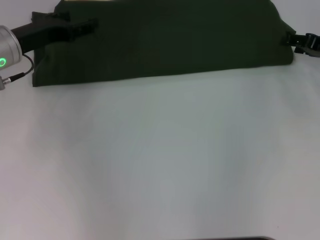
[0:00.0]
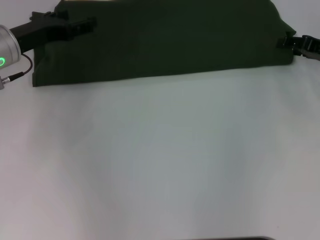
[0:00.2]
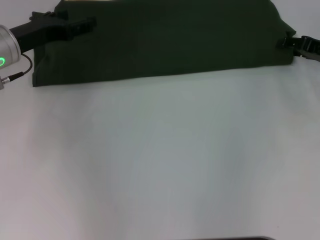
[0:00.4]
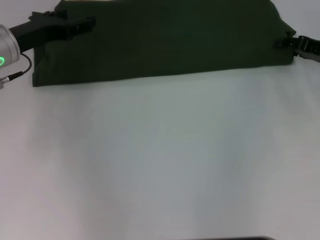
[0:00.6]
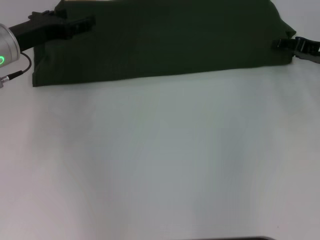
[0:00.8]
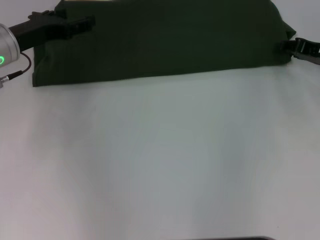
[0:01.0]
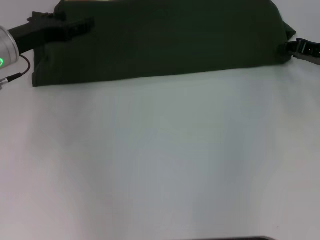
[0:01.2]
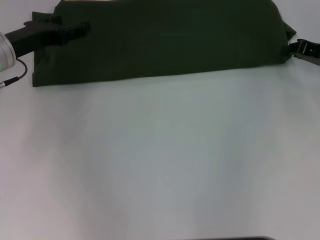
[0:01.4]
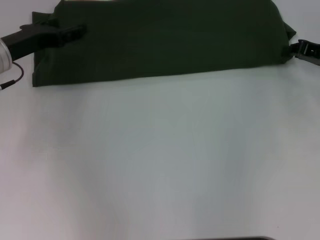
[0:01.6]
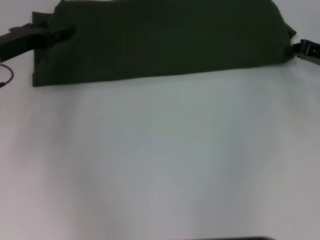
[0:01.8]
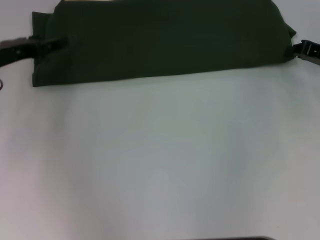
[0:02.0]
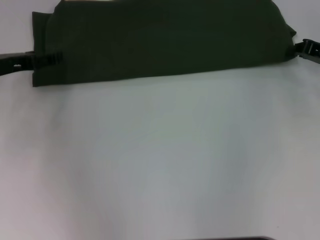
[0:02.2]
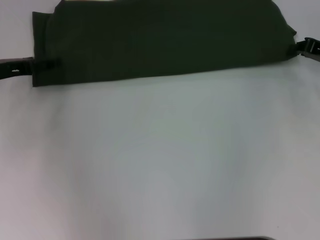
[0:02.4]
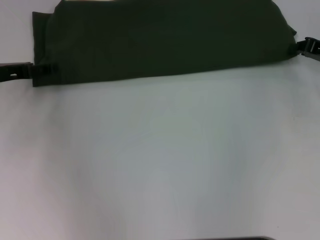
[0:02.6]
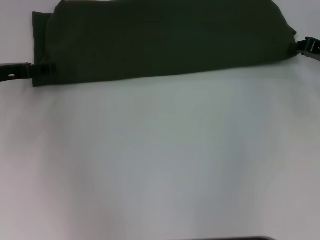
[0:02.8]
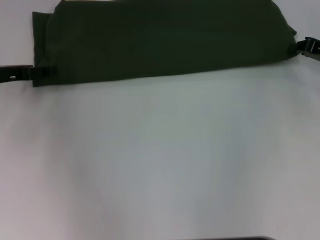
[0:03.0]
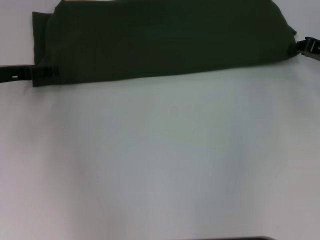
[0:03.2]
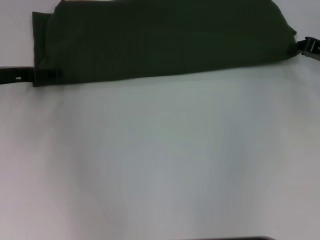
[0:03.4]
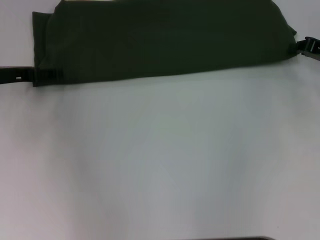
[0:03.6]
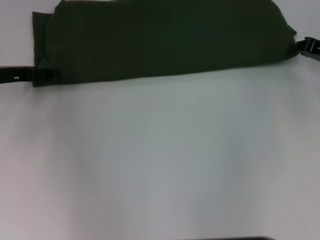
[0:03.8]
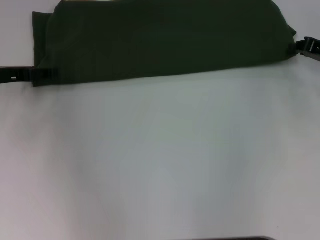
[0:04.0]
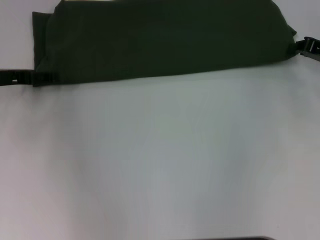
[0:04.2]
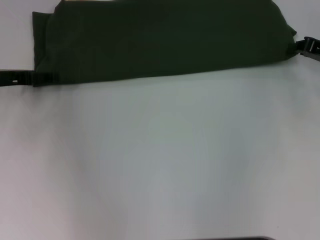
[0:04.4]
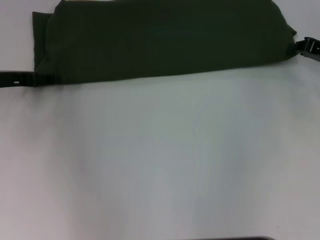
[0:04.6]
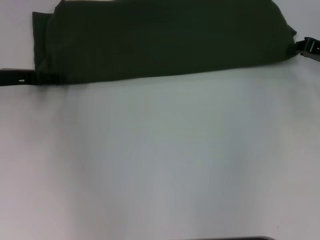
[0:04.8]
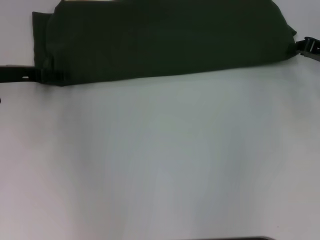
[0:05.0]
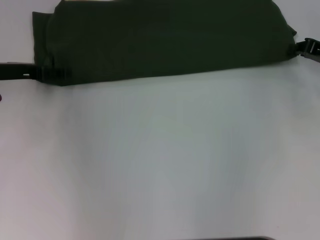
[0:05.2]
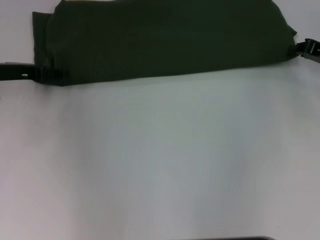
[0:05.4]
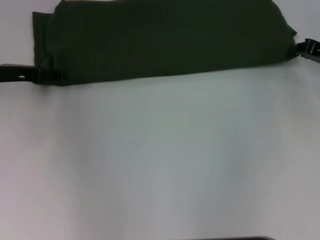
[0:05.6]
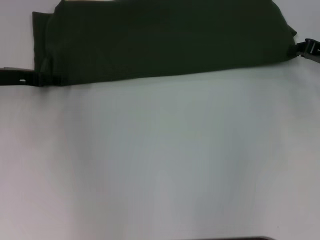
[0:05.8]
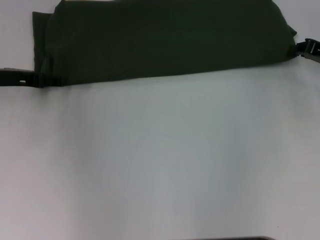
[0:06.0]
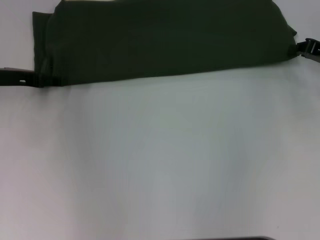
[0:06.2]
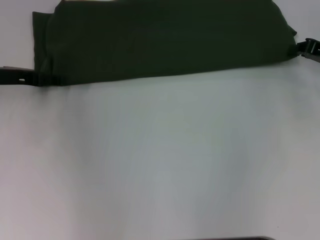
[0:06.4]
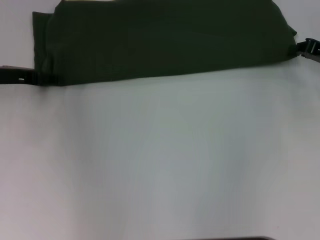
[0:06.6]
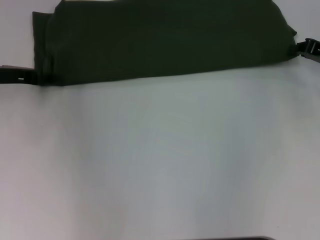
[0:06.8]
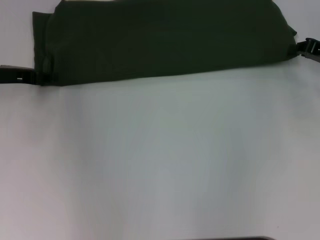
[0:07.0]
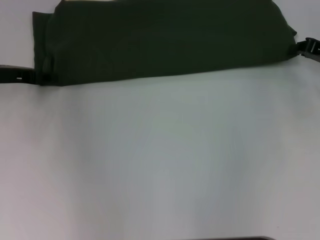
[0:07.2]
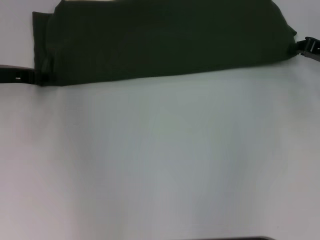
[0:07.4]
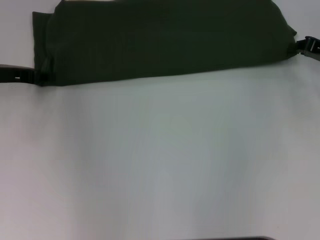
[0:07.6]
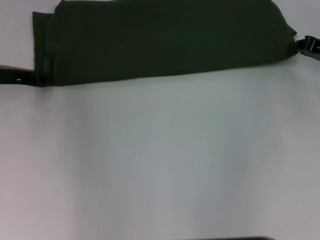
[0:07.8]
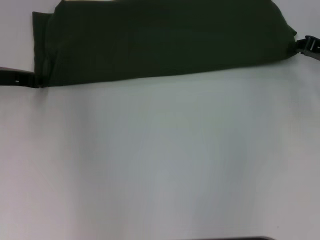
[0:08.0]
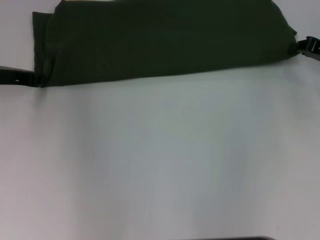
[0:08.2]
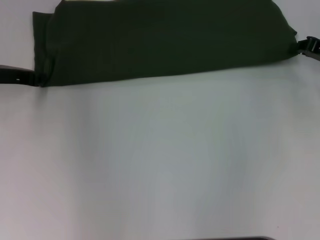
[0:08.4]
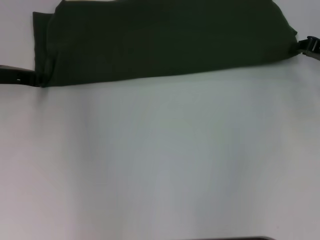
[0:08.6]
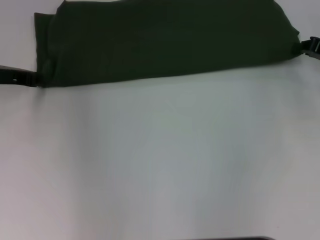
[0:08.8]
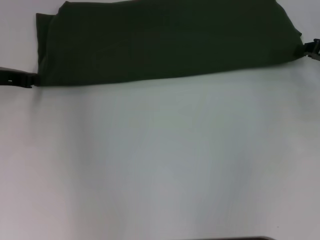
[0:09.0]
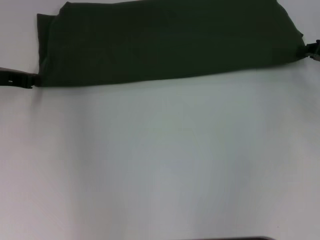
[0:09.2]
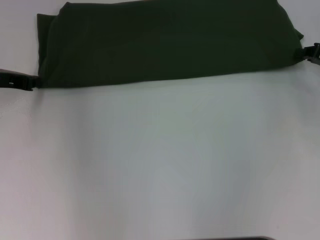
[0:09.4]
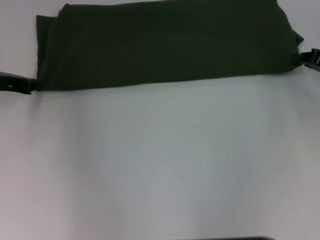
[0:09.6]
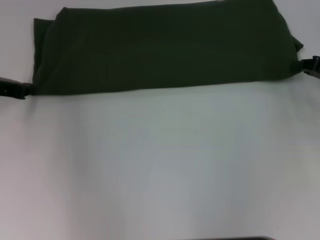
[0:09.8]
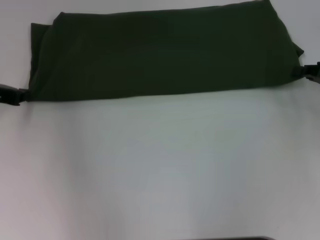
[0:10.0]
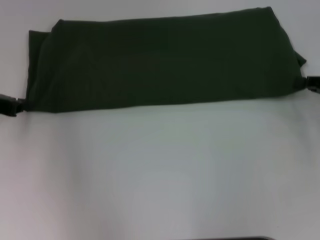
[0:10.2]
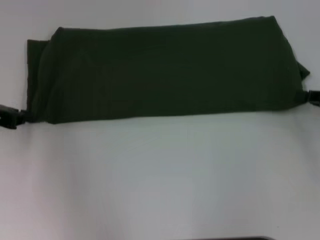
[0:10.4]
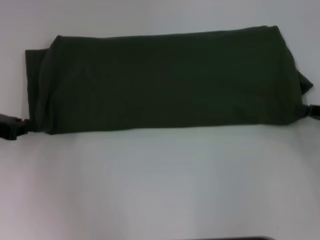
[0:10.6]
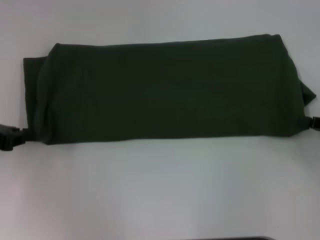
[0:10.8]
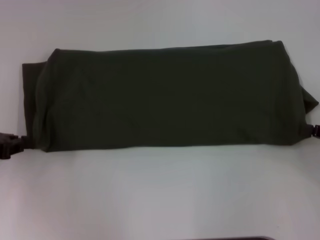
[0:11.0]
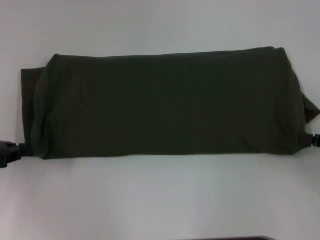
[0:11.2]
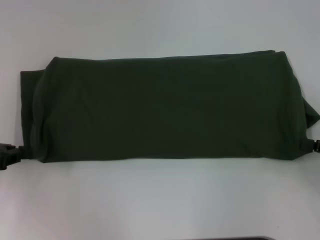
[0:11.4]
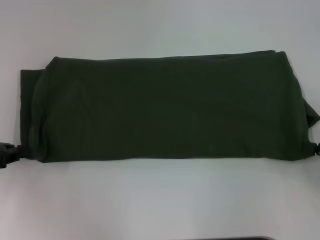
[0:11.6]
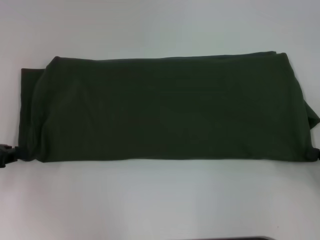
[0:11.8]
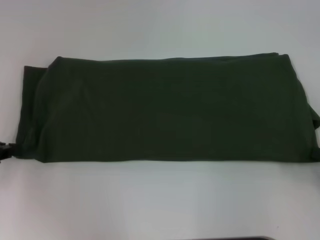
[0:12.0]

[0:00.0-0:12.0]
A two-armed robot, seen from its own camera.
0:00.0 to 0:01.6: The right gripper closes.
0:03.0 to 0:04.4: Neither gripper changes place.
0:07.6 to 0:09.0: The left gripper closes up.
0:09.0 to 0:10.4: The right gripper is displaced backward by roughly 10 cm, while the left gripper shifts approximately 5 cm backward.
0:10.4 to 0:12.0: The left gripper travels backward by some 5 cm; the right gripper goes roughly 10 cm backward.

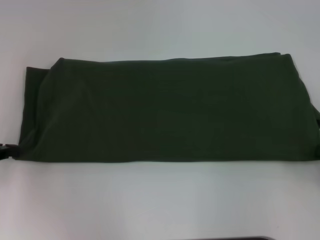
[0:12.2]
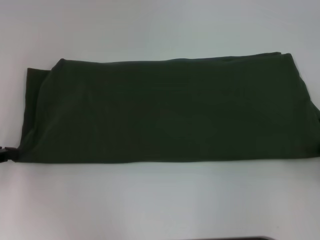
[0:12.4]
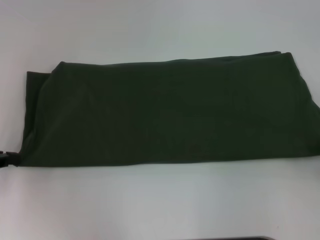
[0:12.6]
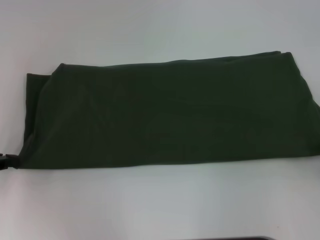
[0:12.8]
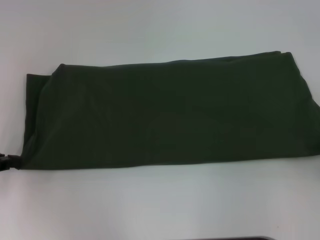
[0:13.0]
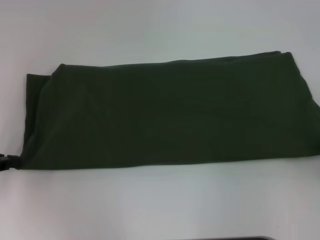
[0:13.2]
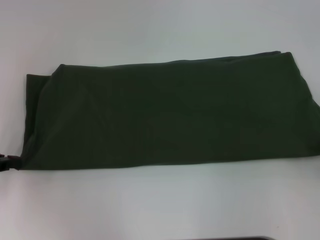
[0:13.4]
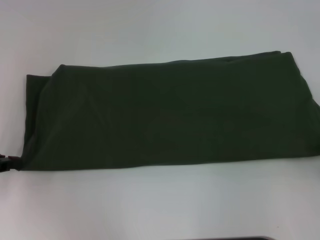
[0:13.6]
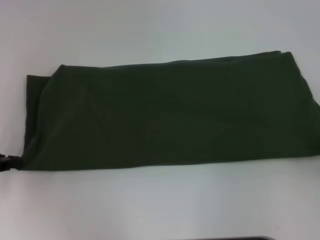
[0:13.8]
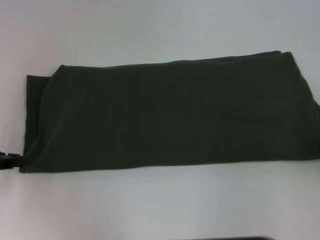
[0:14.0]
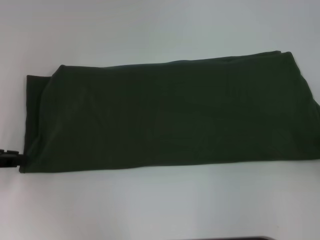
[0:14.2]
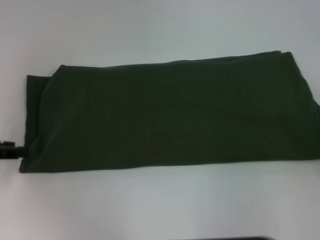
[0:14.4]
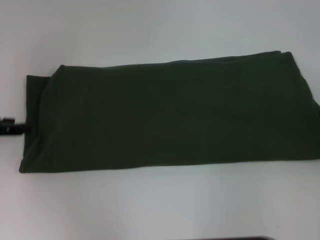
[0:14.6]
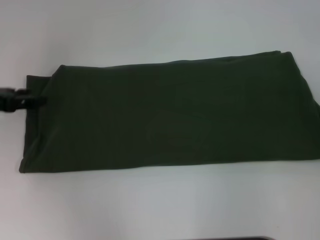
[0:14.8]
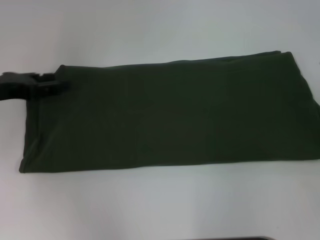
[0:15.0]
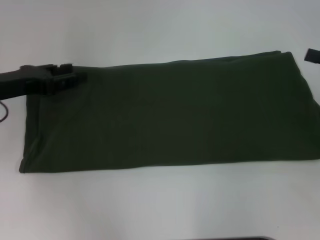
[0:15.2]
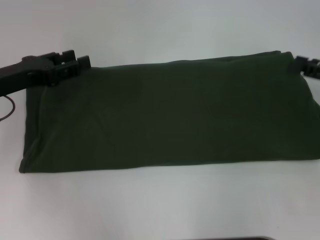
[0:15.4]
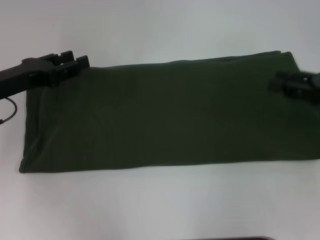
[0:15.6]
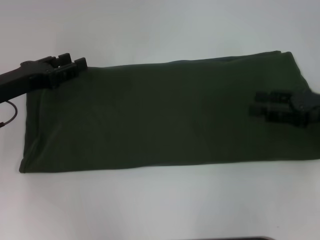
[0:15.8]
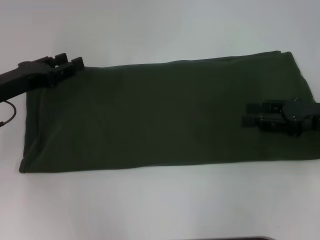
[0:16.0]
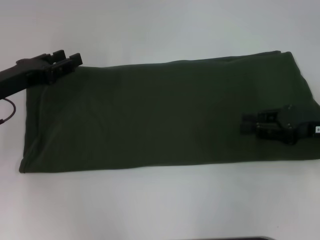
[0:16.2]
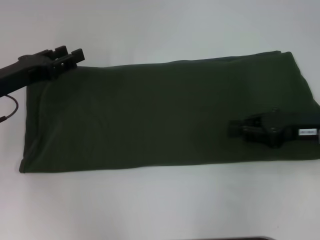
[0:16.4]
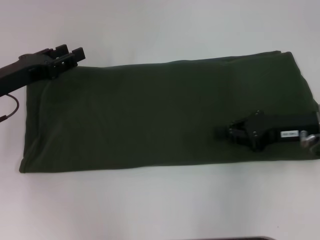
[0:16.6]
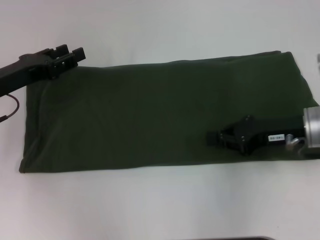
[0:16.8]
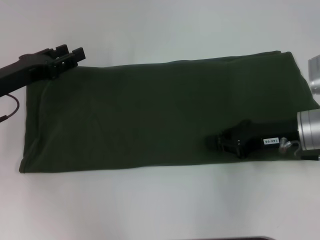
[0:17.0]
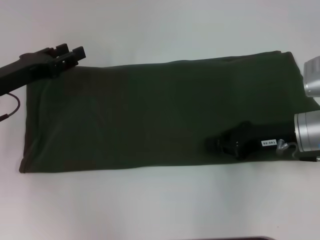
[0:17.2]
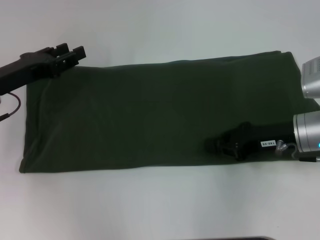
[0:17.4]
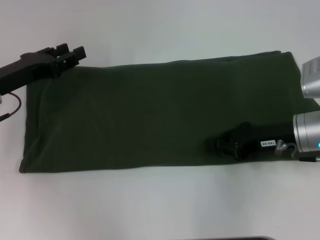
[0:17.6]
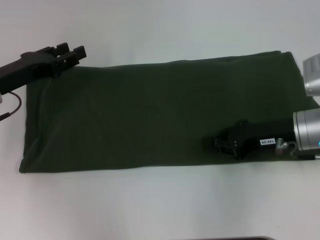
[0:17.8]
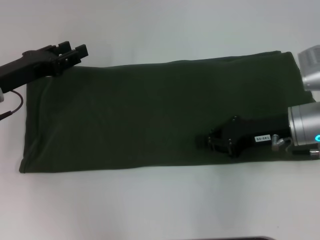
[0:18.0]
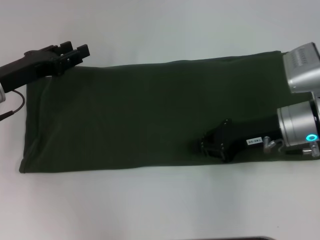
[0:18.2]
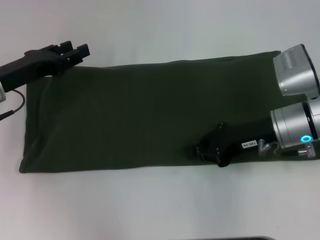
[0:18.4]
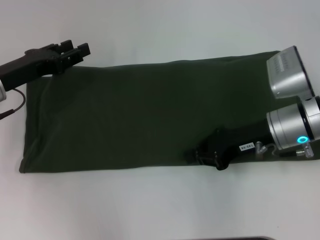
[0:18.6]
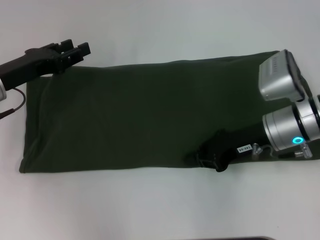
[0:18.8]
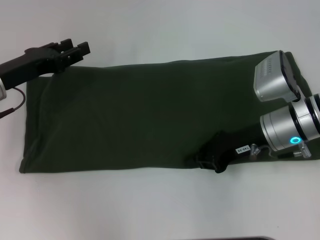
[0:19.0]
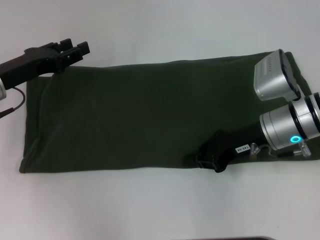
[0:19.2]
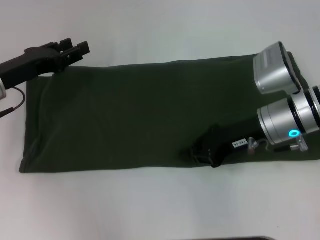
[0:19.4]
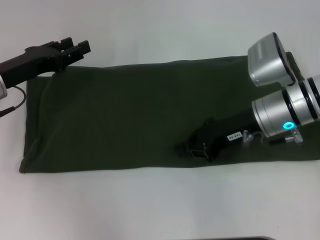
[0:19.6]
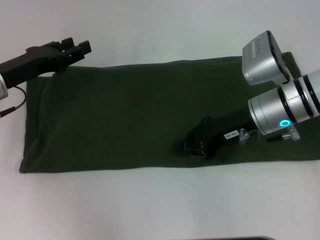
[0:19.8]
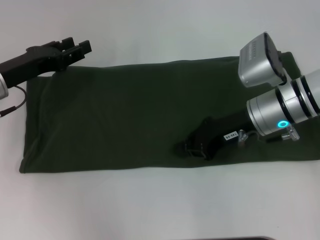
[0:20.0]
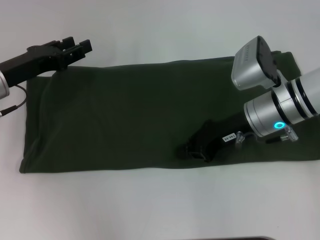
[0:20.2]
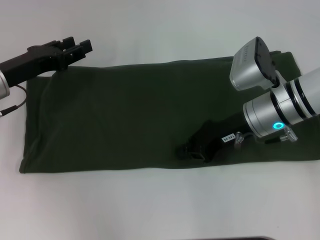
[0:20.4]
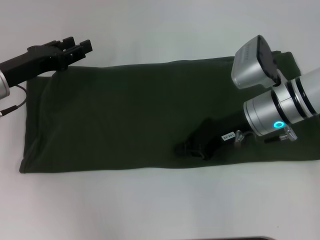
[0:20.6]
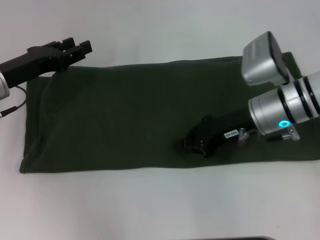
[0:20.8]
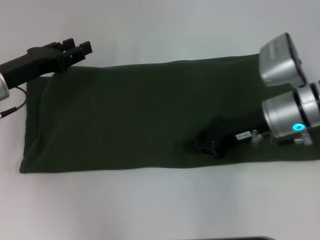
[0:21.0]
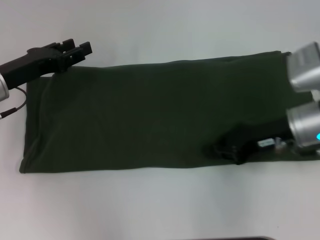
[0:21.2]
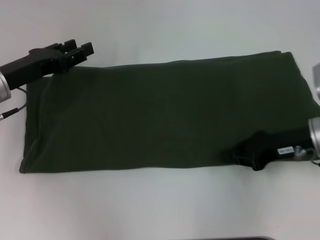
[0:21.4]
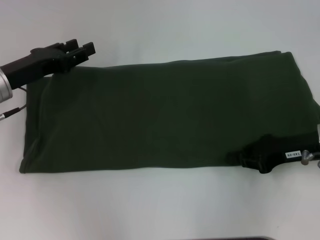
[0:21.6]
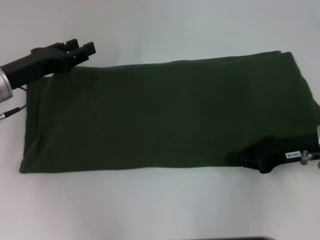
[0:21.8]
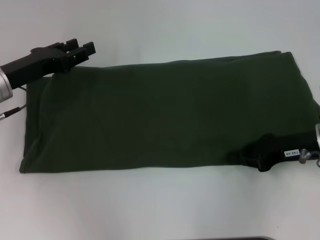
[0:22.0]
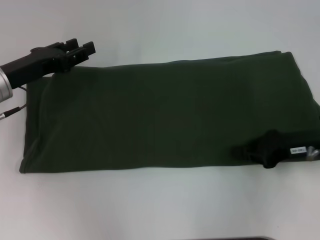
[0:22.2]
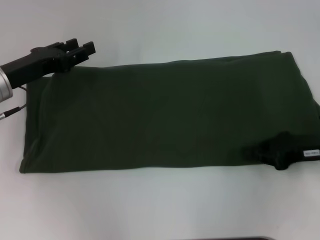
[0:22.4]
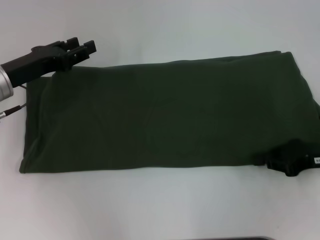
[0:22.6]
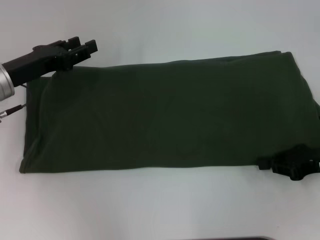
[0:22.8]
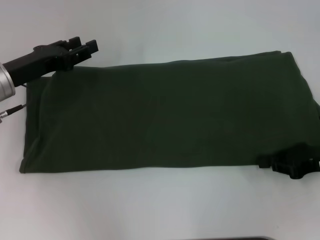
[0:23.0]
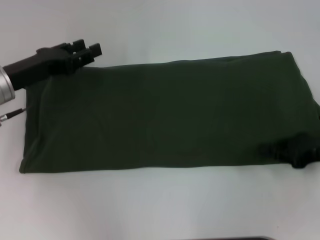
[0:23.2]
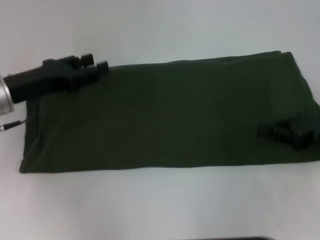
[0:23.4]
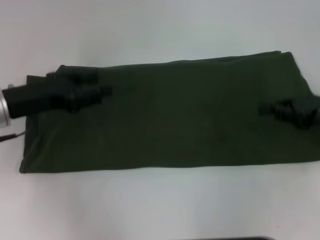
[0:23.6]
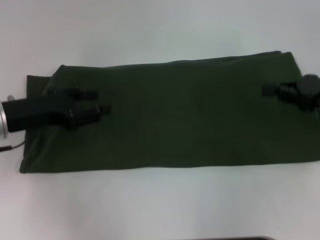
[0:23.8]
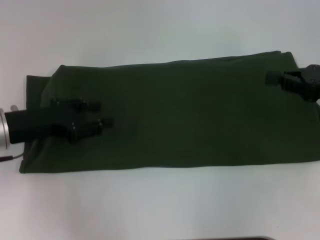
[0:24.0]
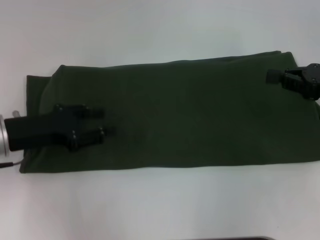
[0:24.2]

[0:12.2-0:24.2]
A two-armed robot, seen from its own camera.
0:12.2 to 0:13.8: The grippers stay close to where they were, moving slightly.
0:13.8 to 0:15.2: The left gripper heads to the right and forward, covering some 10 cm, and opens its fingers, while the right gripper goes about 10 cm forward and upward, and opens.
0:15.2 to 0:16.6: The right gripper travels to the left by roughly 10 cm, and closes its fingers.
0:16.6 to 0:18.2: The right gripper changes place by about 5 cm.
0:18.2 to 0:19.8: The grippers move only a little.
0:19.8 to 0:21.2: The right gripper shifts about 5 cm to the right.
0:21.2 to 0:22.6: The right gripper is displaced to the right by about 10 cm.
0:22.6 to 0:24.2: The left gripper heads backward, covering about 5 cm. Meanwhile the right gripper shifts roughly 5 cm upward.
